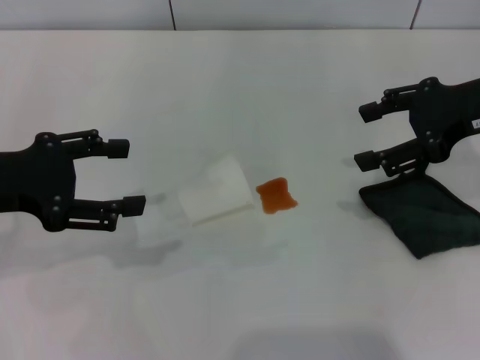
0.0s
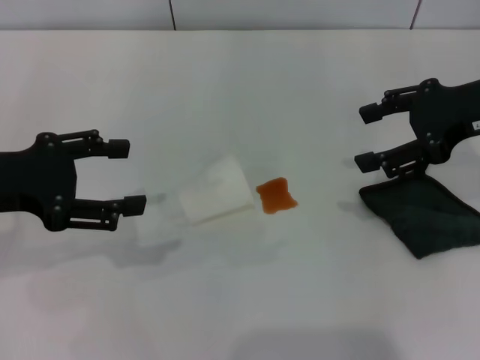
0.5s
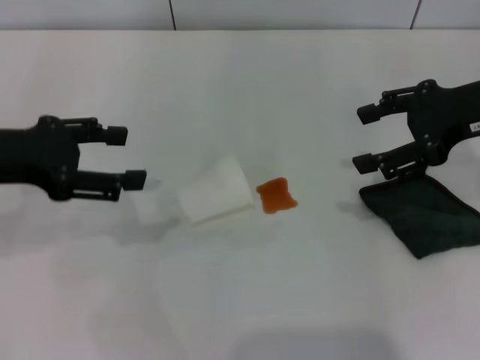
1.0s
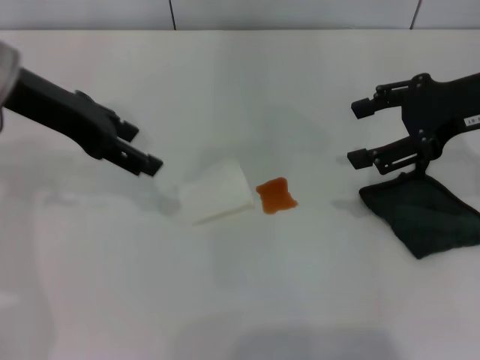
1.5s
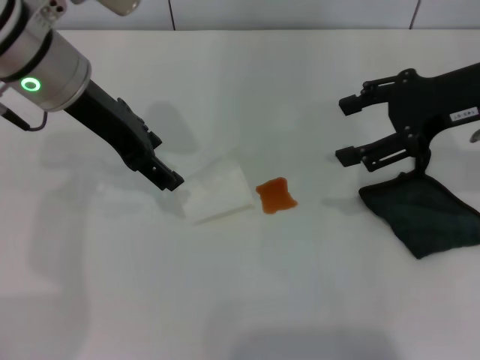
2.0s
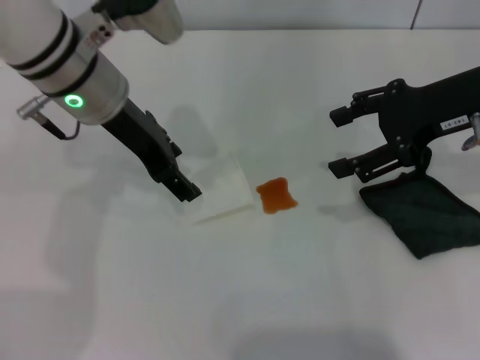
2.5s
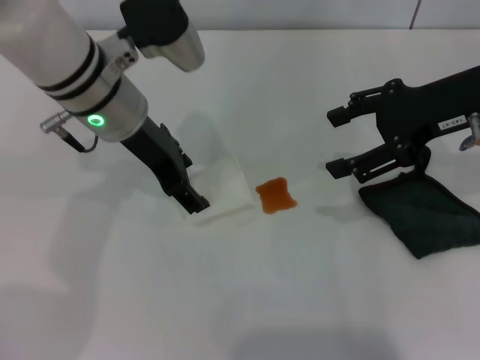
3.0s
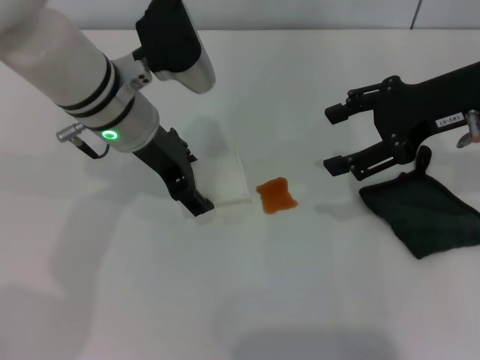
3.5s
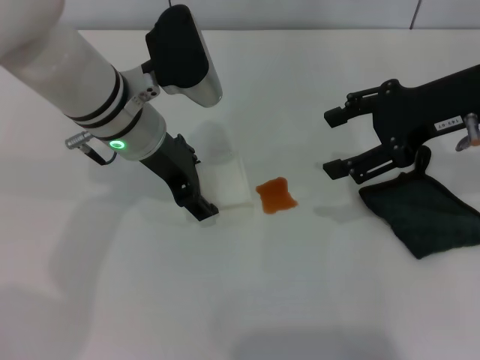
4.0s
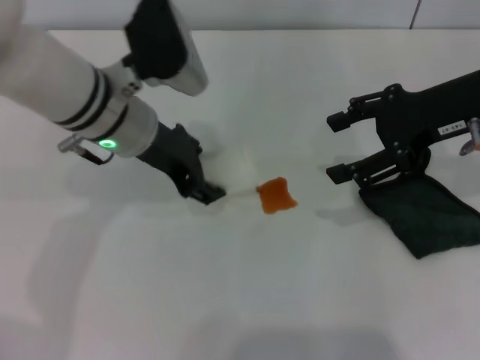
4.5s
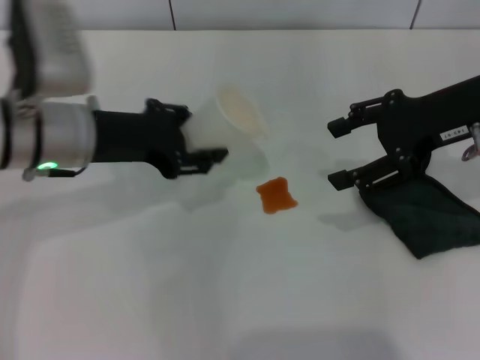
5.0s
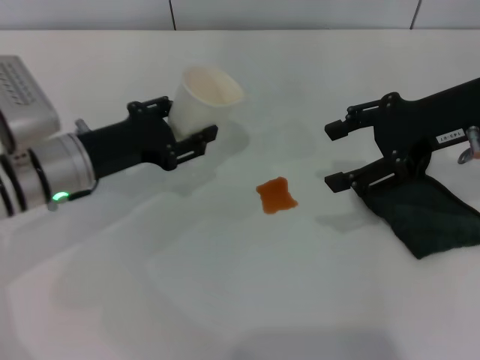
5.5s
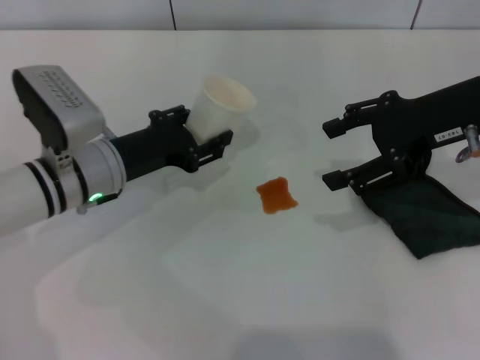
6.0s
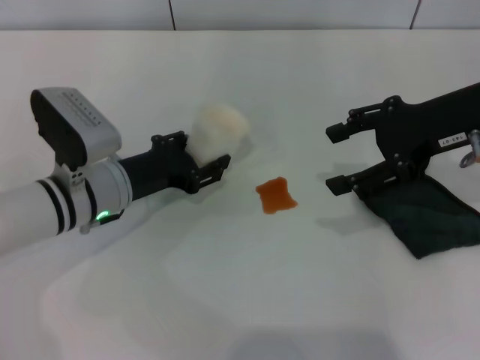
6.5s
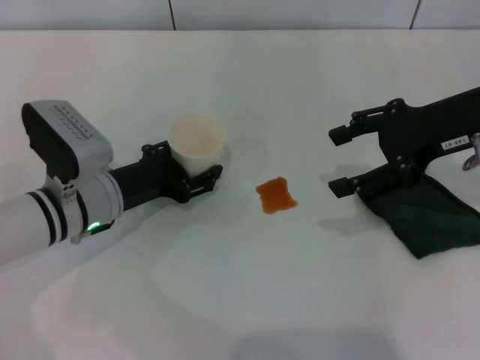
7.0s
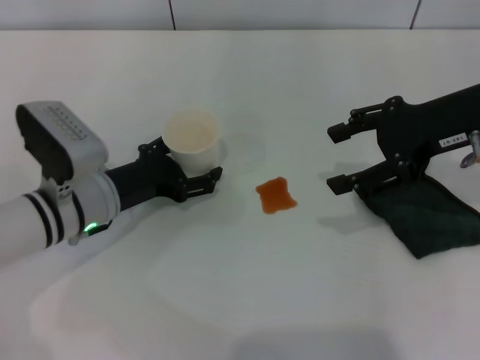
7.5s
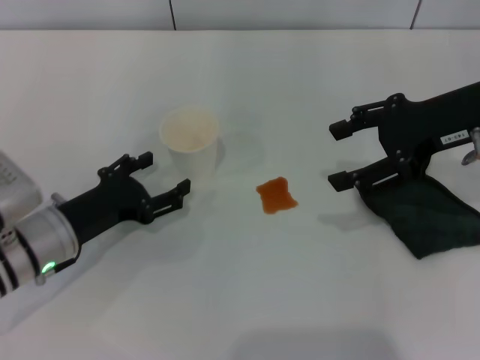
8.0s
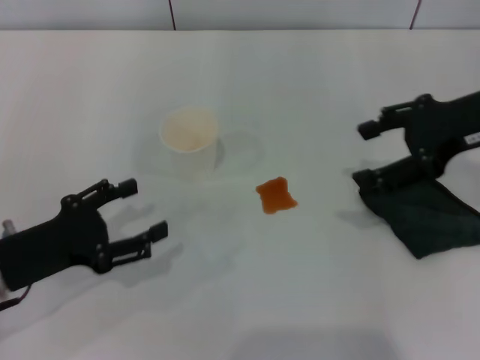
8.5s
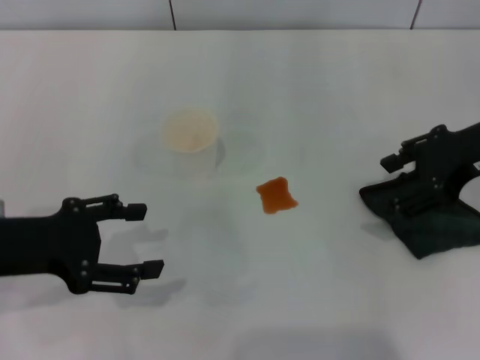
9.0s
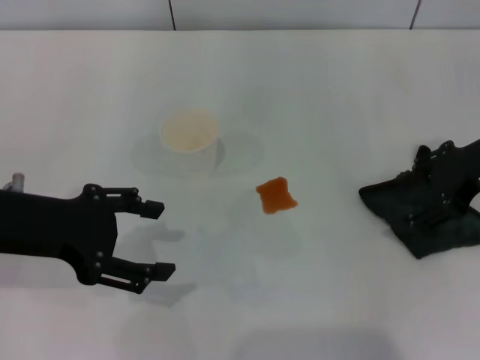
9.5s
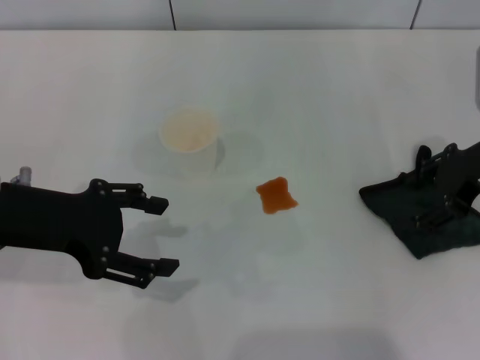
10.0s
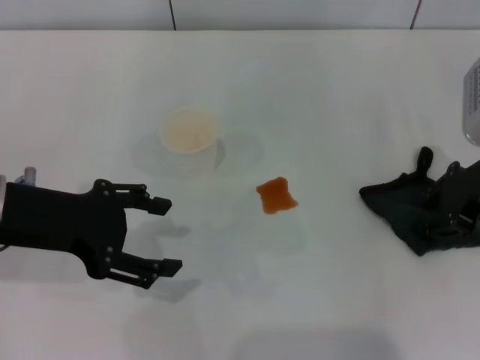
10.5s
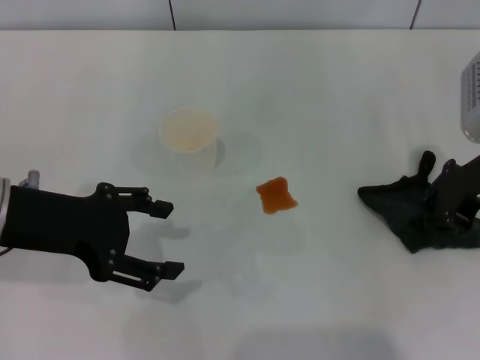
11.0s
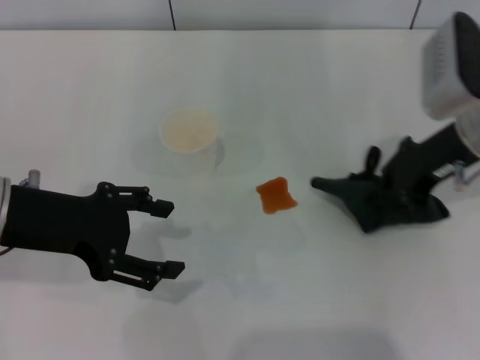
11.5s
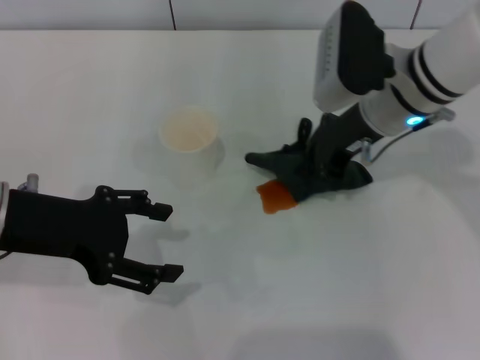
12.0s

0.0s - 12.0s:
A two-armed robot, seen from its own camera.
Step, 0.0s - 4.0s: Grasp the paper cup with the left gripper.
Step, 4.5s - 8.0s: Stand the paper cup upright with the left gripper.
Step, 8.5s - 10.5s: Grasp the rag with the right gripper.
0.0s - 2.0s: The left gripper is displaced to the right and forward by approximately 15 cm.
2.0s - 4.0s: The left gripper goes some 10 cm downward and to the right.
4.0s - 6.0s: The left gripper is displaced downward and to the left by about 10 cm, and closes.
6.0s - 8.0s: The left gripper heads backward, covering some 5 cm, and opens.
8.0s - 10.0s: The left gripper heads upward, covering some 15 cm.
10.0s - 12.0s: The right gripper travels to the left by about 15 cm, and closes up.

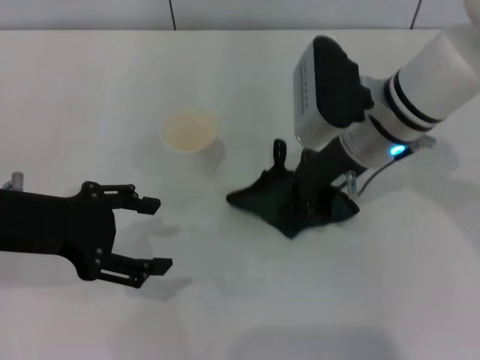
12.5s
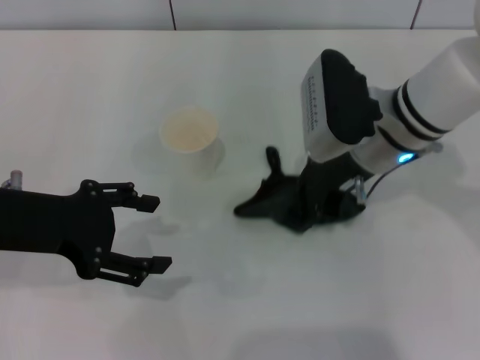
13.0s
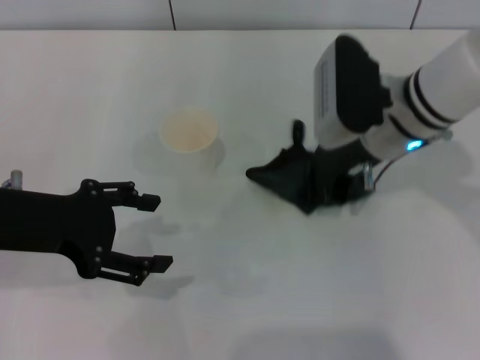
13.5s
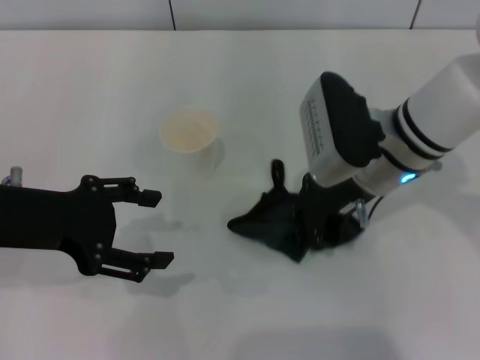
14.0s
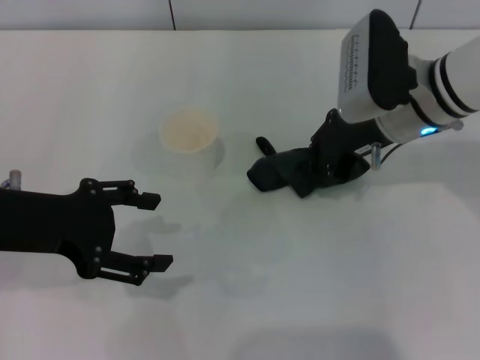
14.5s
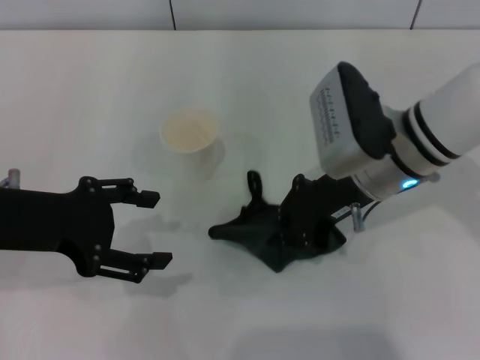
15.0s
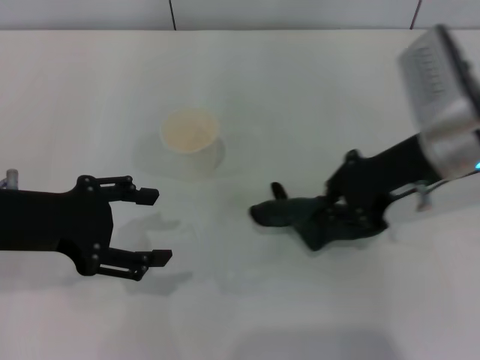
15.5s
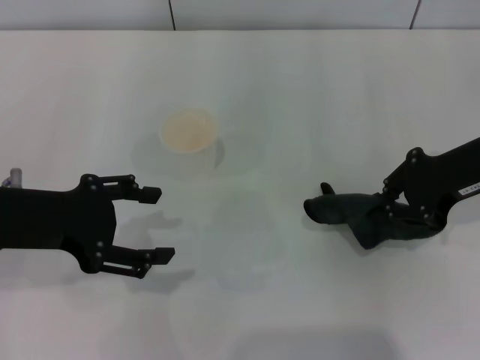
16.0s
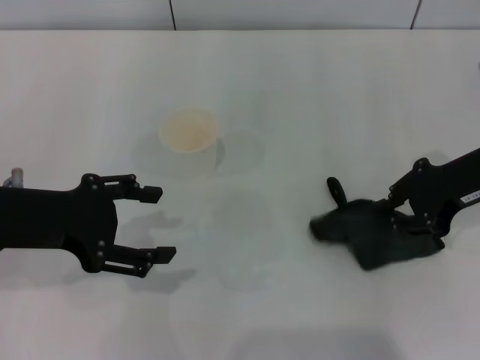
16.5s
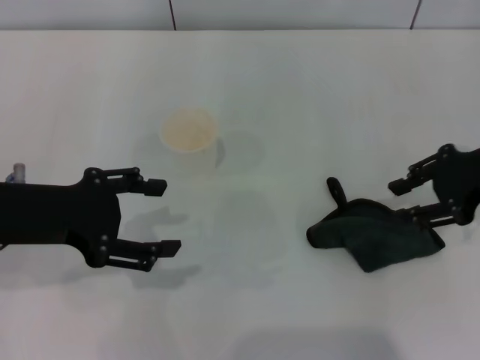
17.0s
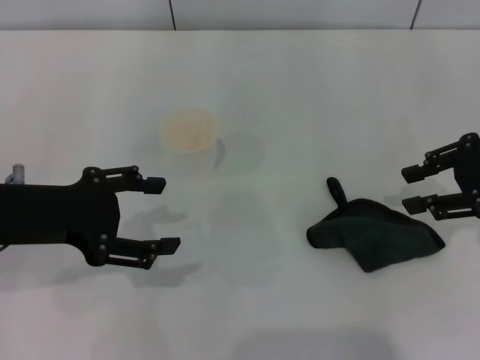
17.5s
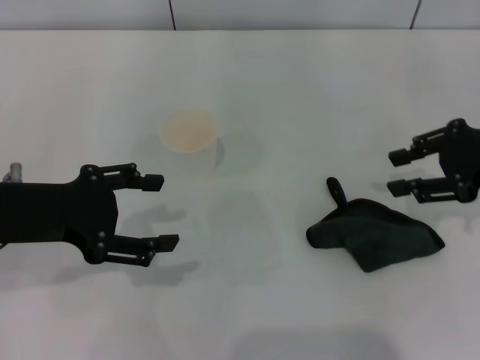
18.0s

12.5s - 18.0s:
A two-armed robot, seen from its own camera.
Step, 12.5s - 15.0s: Wipe the stains off the table with the right gripper.
Step, 15.5s - 17.0s: Place the rag on the table with the right gripper.
12.5s - 14.5s: The grippers move only a little.
14.5s - 16.0s: The right gripper moves to the right and backward, approximately 10 cm.
16.0s - 18.0s: The right gripper opens its fingers.

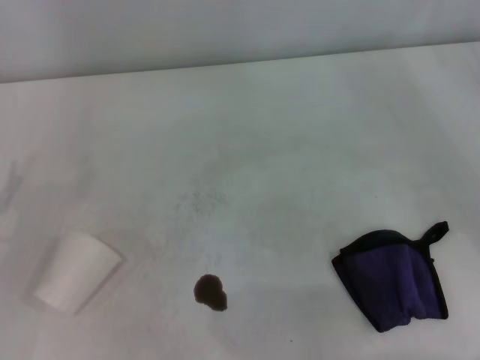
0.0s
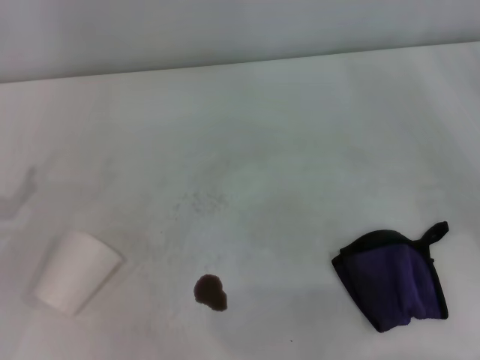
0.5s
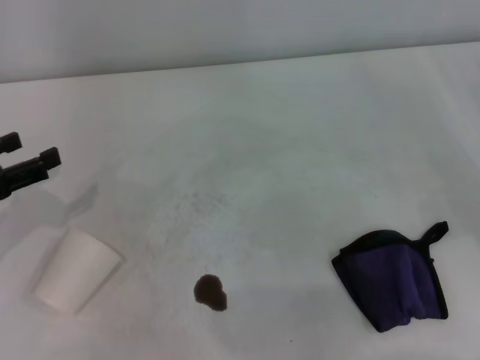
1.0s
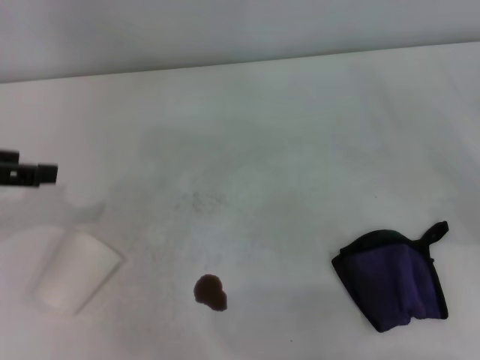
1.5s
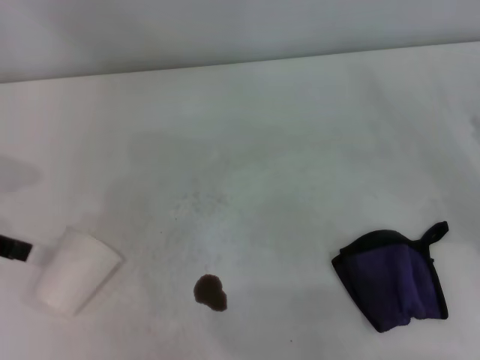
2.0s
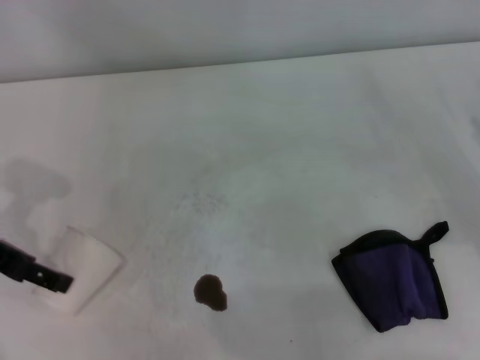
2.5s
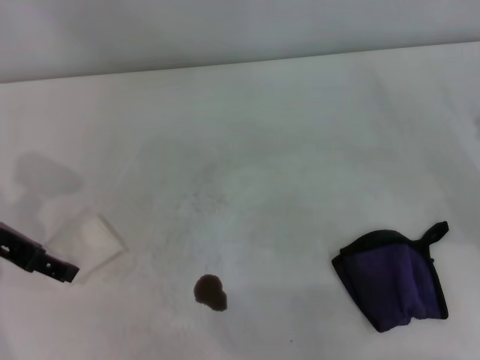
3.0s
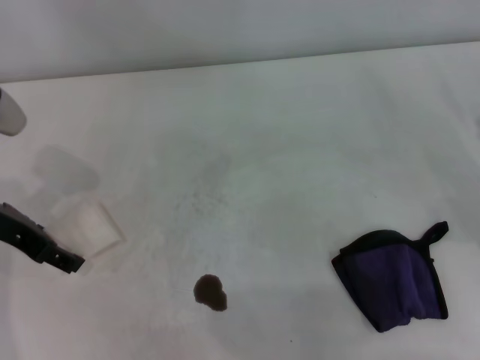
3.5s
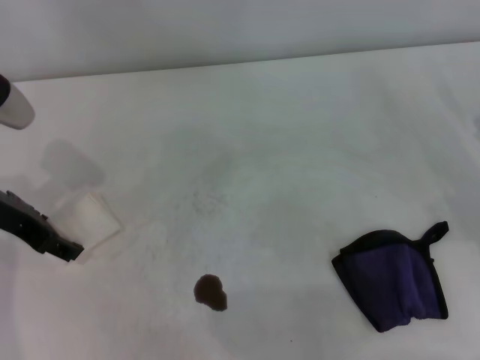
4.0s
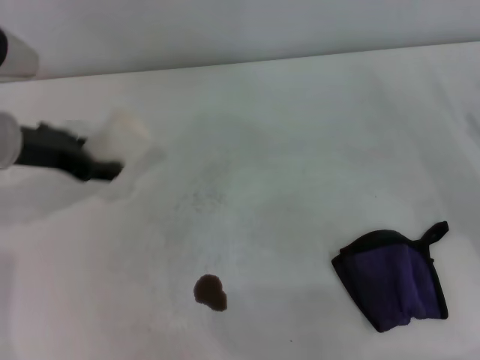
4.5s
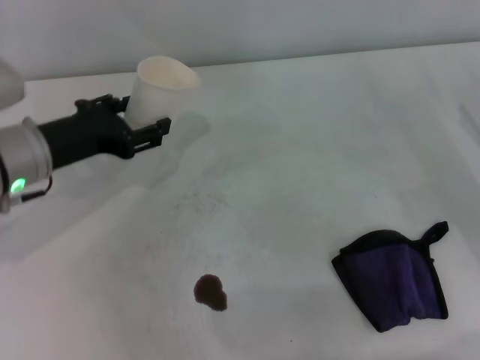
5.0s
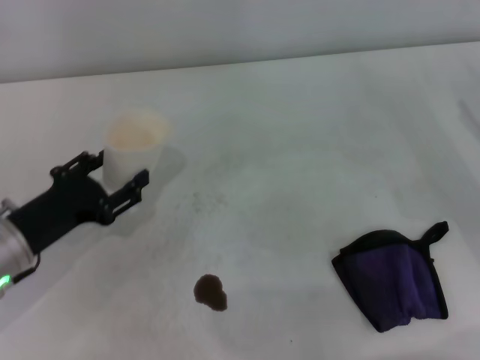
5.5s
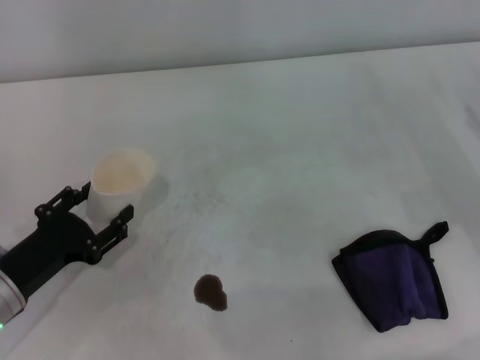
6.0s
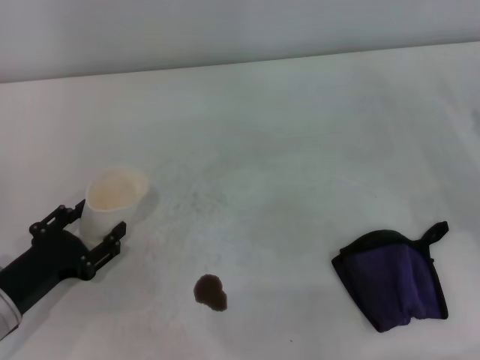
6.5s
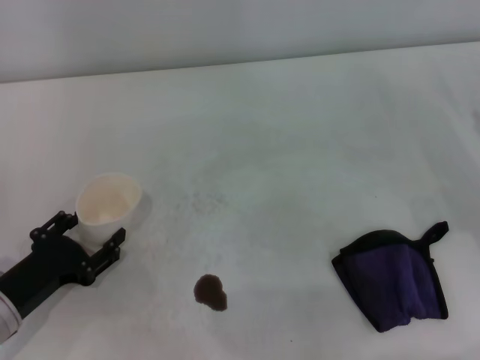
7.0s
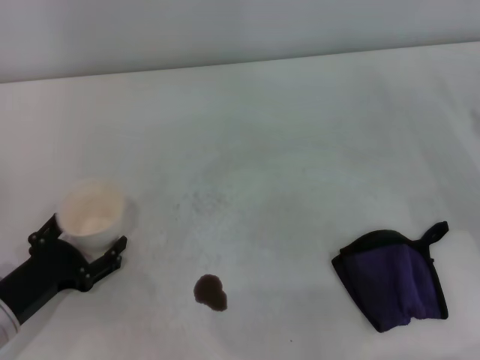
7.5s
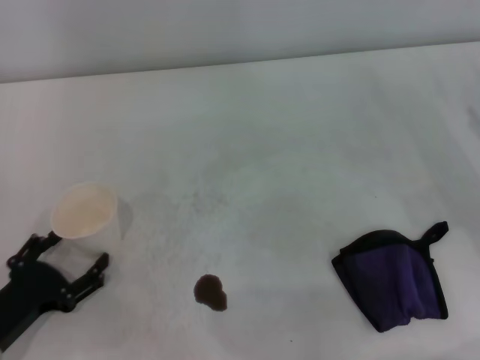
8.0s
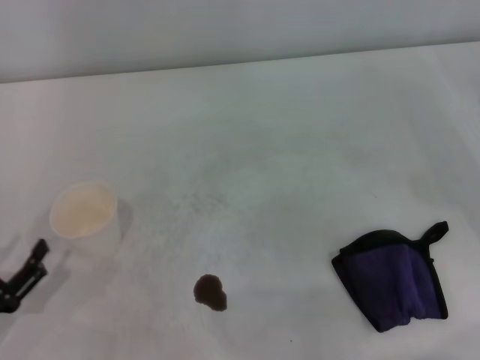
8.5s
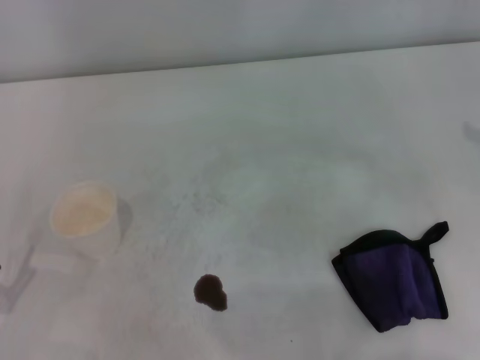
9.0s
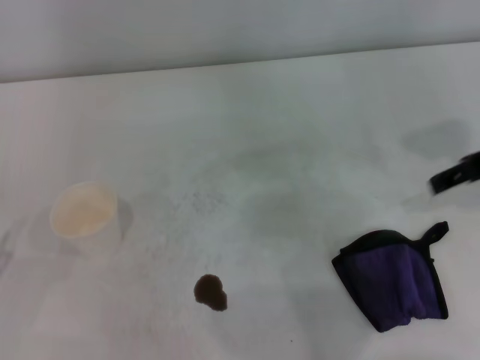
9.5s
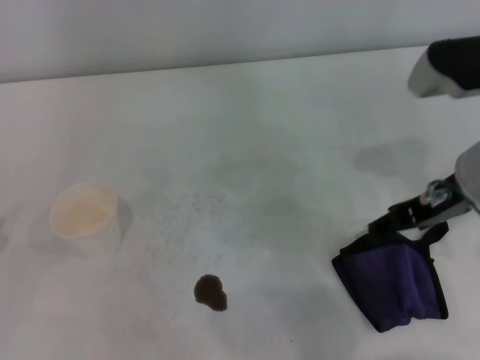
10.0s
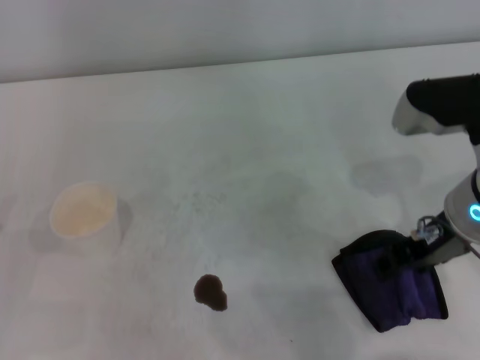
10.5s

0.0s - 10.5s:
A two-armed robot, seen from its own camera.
Step, 0.0s - 4.0s: Grasp the paper cup with the left gripper.
Step, 4.5s - 7.5s: Stand the paper cup upright with the left gripper.
2.0s - 4.0s: The left gripper shifts some 10 cm to the right and downward.
4.0s - 6.5s: The left gripper travels downward and backward by about 20 cm, and closes up.
6.5s - 8.5s: The left gripper travels backward by roughly 5 cm, and opens up.
8.5s - 10.5s: The right gripper shifts about 25 cm to the left, while the left gripper changes place by roughly 5 cm.
